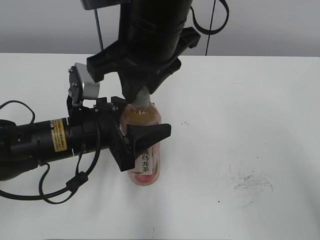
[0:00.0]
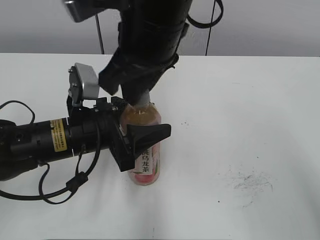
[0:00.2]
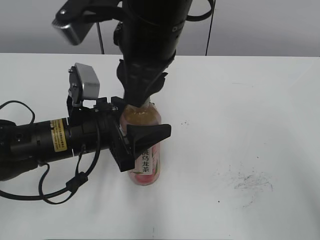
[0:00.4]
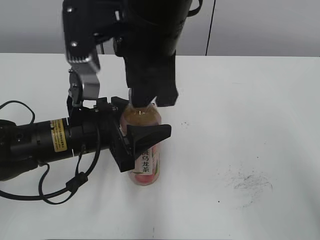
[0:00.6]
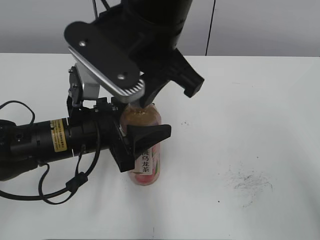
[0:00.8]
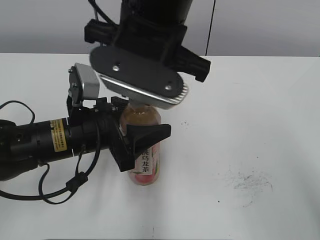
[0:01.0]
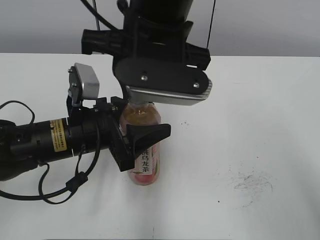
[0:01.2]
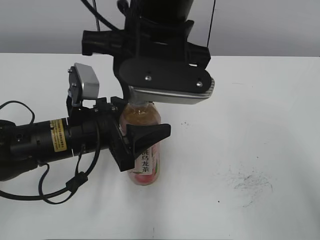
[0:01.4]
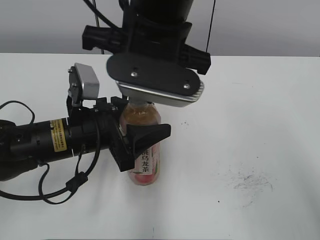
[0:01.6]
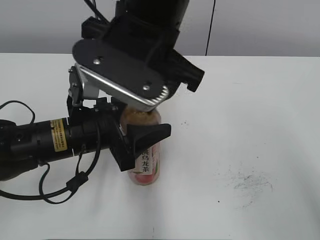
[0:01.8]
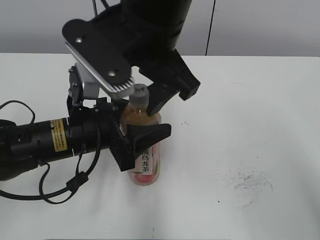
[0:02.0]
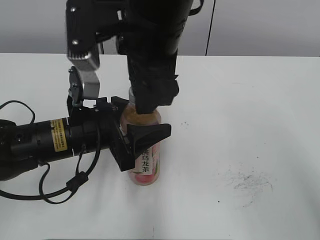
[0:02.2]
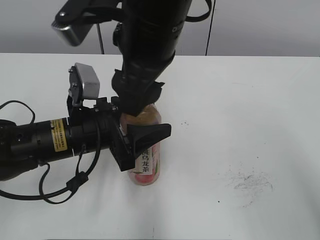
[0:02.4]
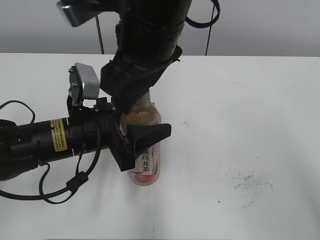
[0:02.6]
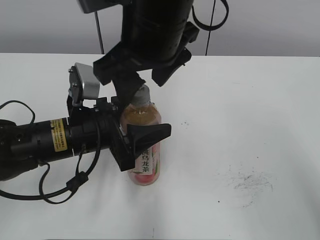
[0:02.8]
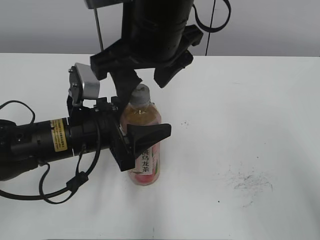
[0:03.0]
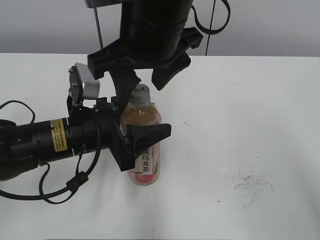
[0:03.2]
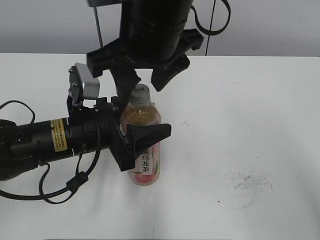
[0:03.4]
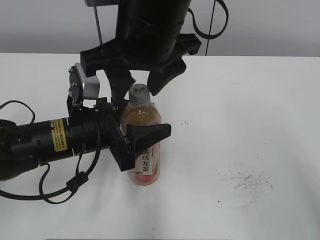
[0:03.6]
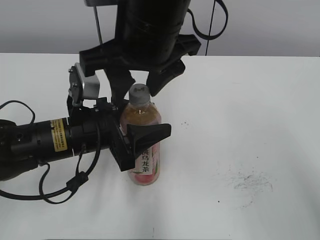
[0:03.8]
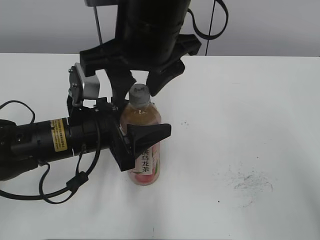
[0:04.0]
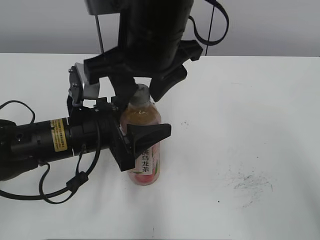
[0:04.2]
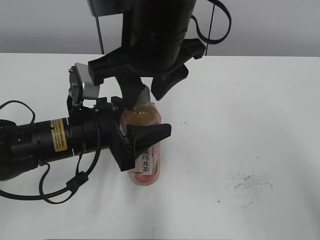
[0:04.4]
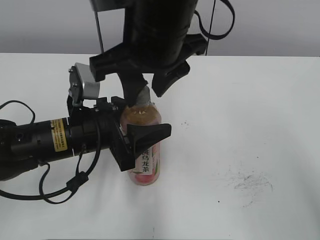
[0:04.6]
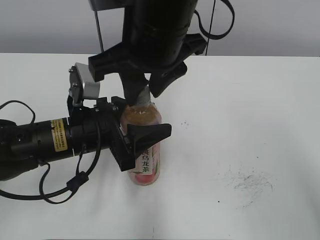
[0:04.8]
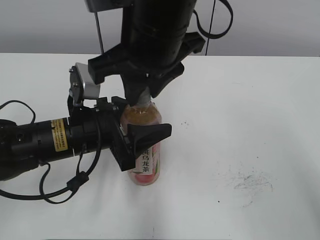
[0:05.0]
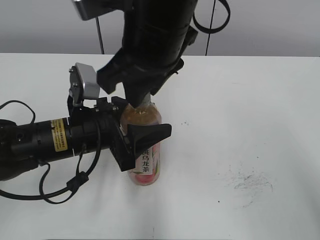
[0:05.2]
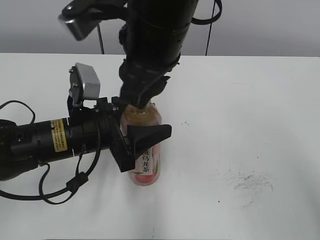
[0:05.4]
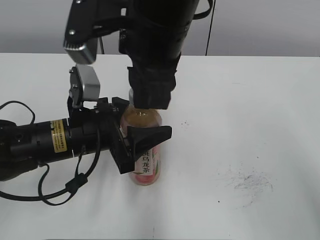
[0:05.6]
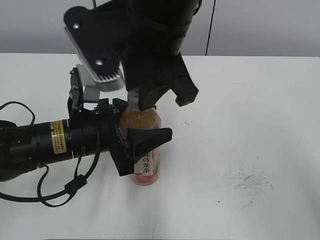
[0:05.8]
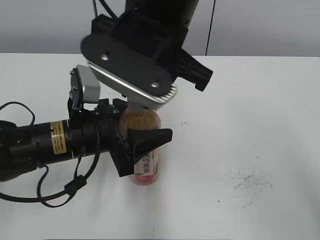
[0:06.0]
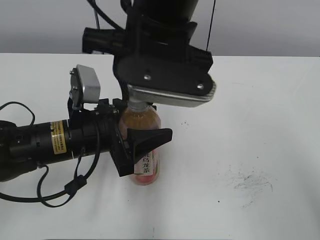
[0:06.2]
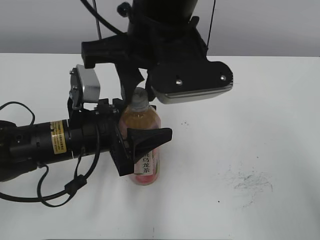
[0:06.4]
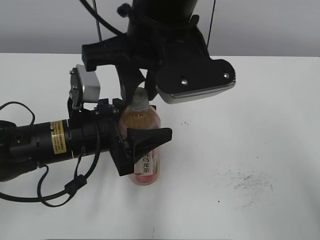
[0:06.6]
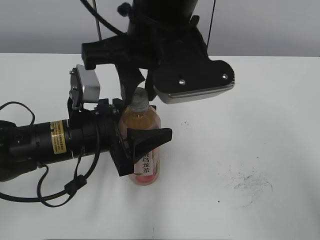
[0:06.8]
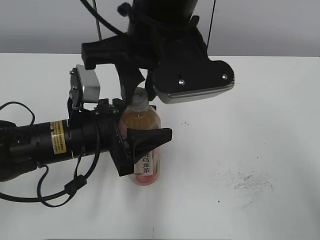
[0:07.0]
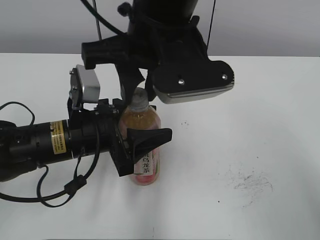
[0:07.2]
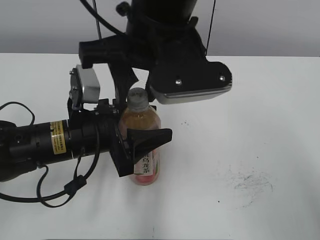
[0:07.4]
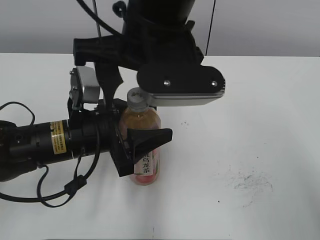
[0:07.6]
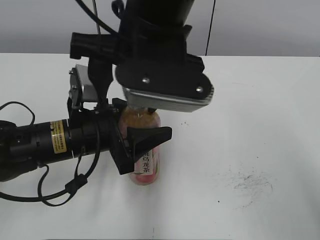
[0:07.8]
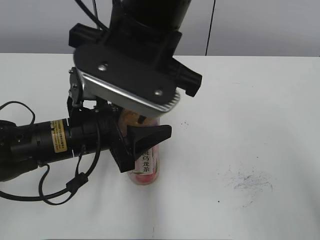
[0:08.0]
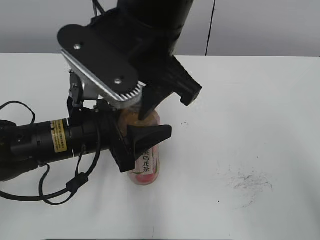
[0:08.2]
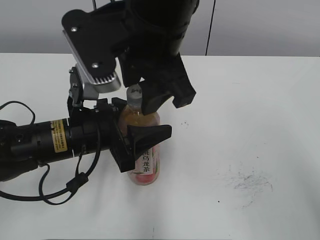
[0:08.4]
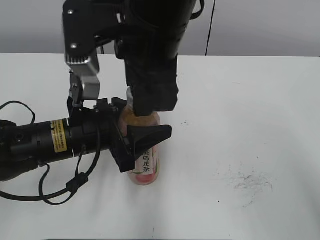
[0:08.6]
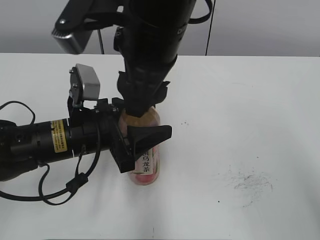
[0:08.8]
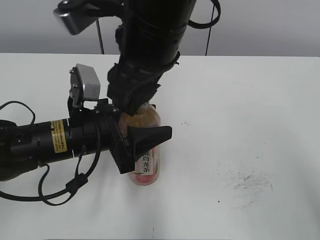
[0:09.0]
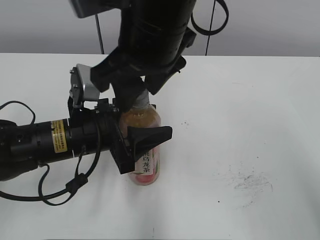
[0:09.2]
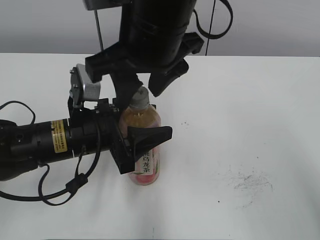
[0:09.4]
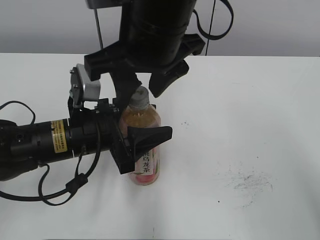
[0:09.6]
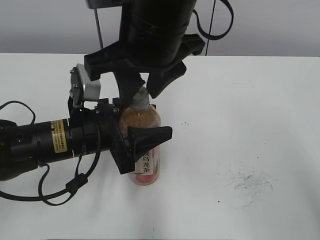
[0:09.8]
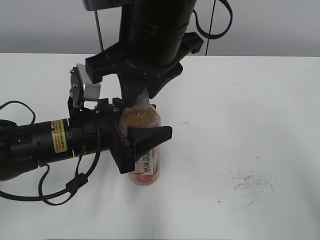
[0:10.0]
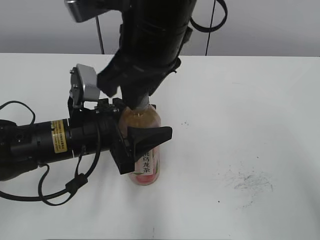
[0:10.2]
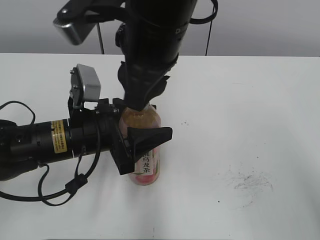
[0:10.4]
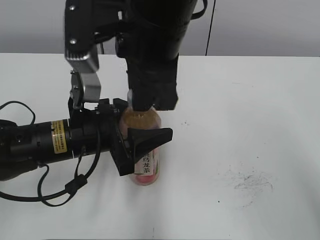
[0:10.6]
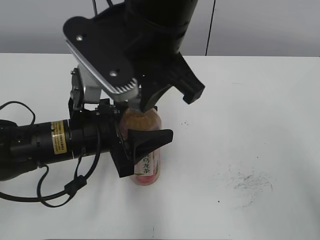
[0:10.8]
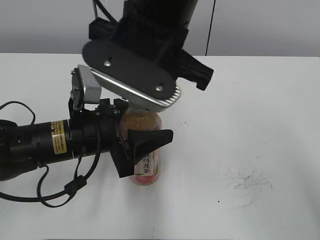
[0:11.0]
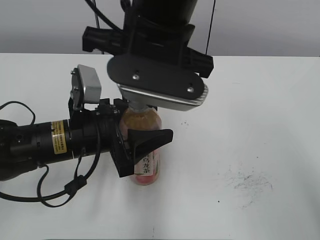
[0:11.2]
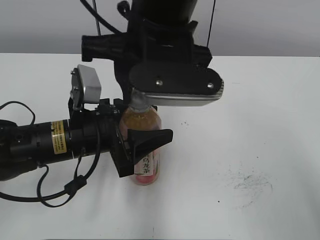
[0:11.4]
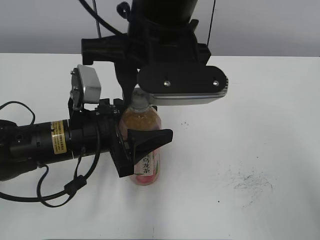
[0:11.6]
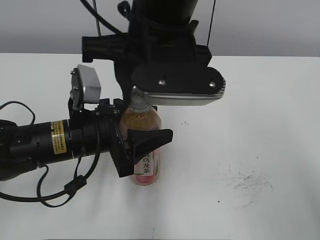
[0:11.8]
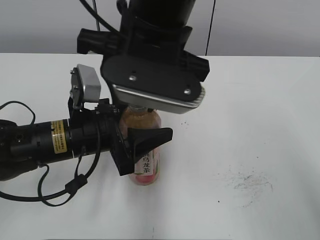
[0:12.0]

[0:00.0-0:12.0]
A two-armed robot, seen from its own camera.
0:01.6 to 0:03.0: The right gripper opens up.
0:03.0 to 0:04.4: The right gripper closes its fingers.
0:04.4 to 0:06.0: The right gripper closes its fingers.
0:06.0 to 0:07.6: The right gripper opens.
0:09.0 to 0:10.4: The right gripper closes.

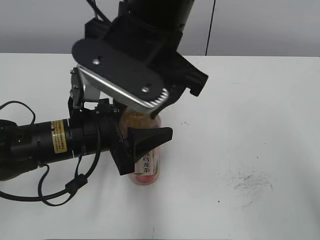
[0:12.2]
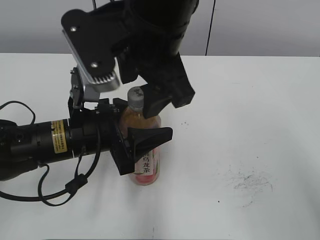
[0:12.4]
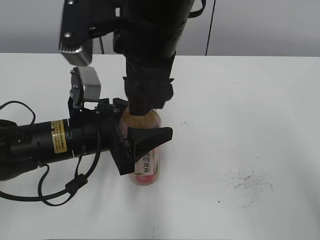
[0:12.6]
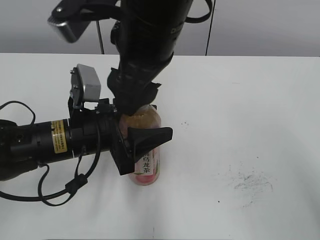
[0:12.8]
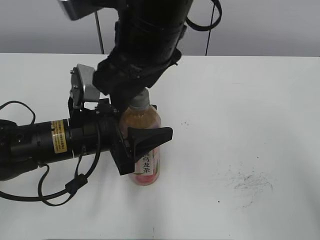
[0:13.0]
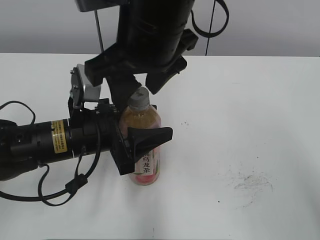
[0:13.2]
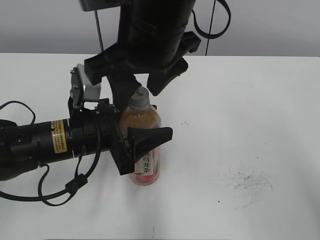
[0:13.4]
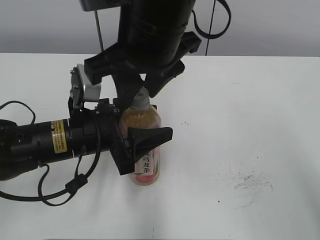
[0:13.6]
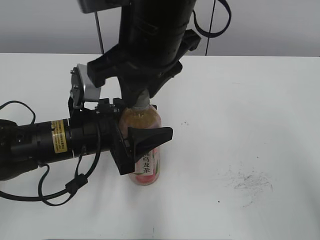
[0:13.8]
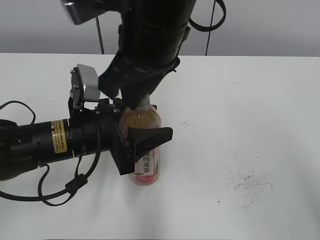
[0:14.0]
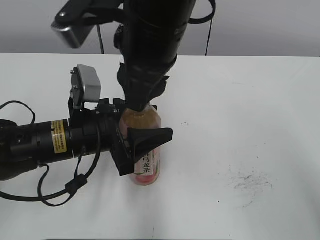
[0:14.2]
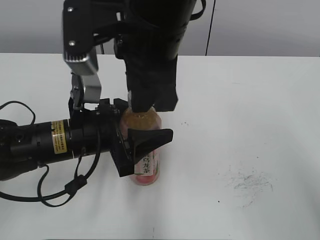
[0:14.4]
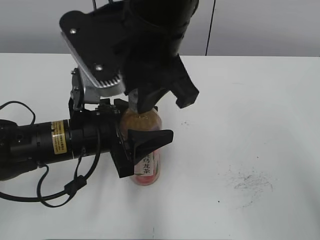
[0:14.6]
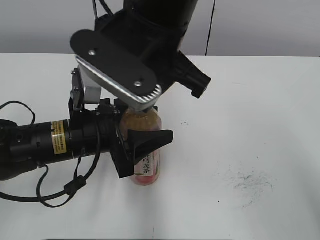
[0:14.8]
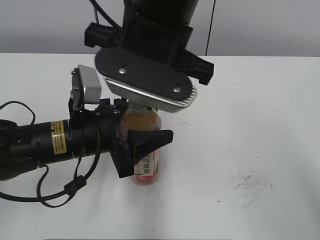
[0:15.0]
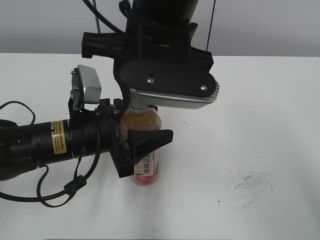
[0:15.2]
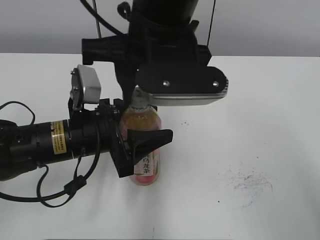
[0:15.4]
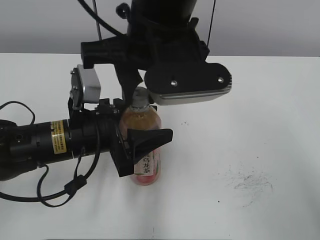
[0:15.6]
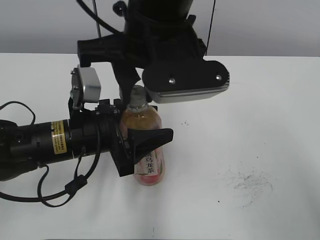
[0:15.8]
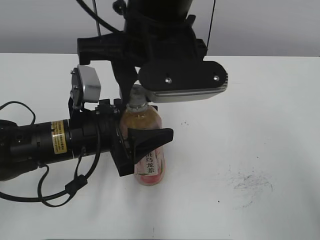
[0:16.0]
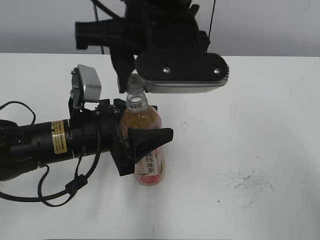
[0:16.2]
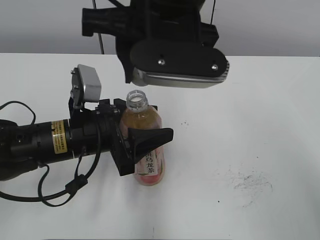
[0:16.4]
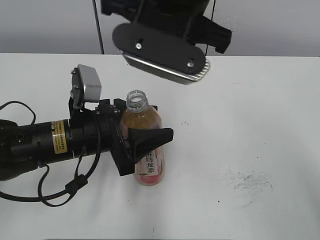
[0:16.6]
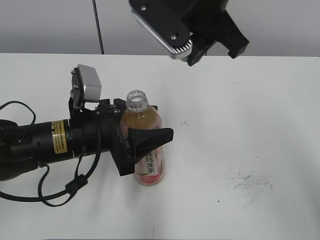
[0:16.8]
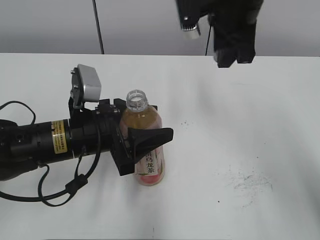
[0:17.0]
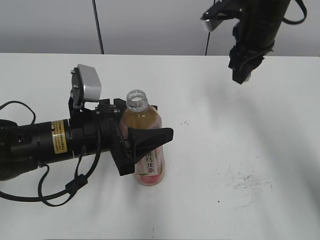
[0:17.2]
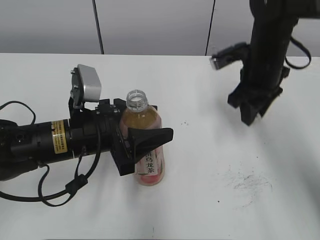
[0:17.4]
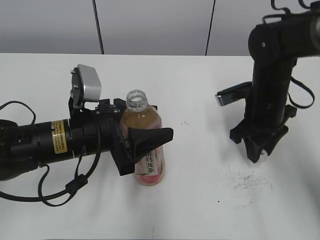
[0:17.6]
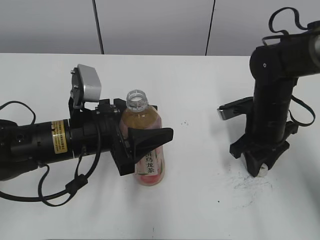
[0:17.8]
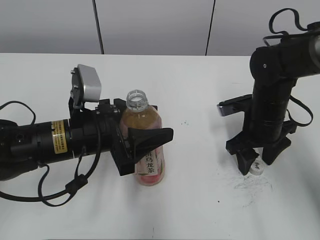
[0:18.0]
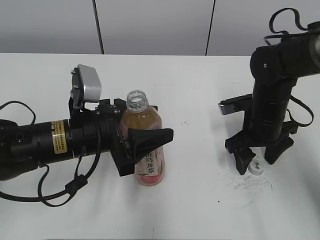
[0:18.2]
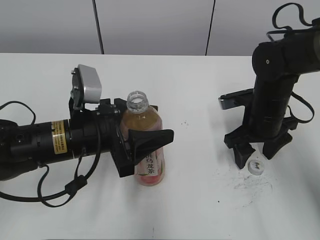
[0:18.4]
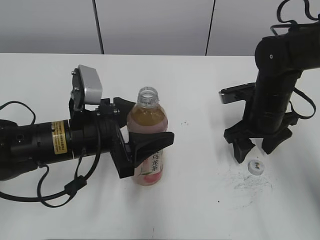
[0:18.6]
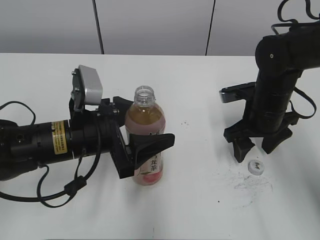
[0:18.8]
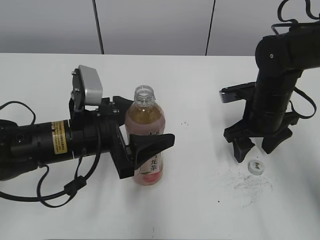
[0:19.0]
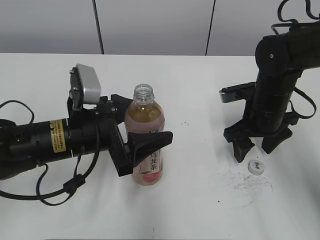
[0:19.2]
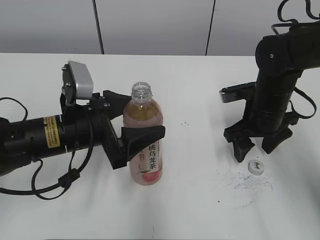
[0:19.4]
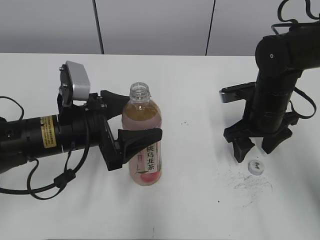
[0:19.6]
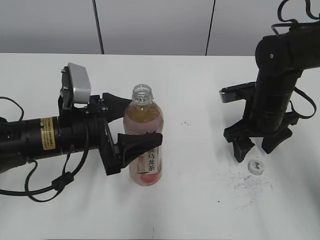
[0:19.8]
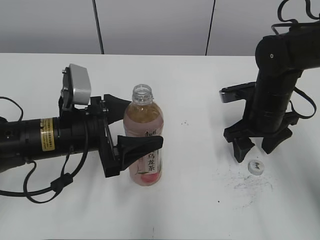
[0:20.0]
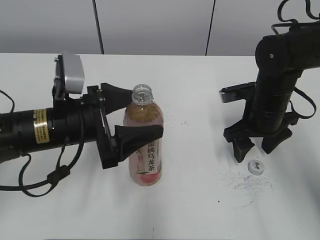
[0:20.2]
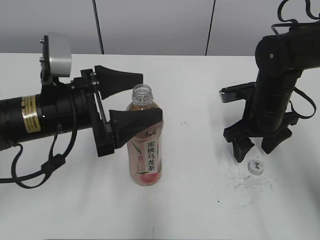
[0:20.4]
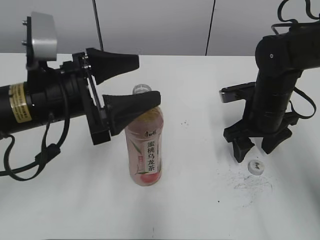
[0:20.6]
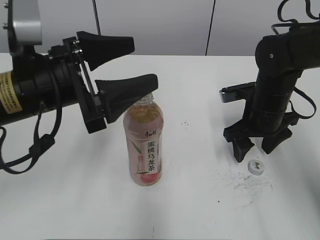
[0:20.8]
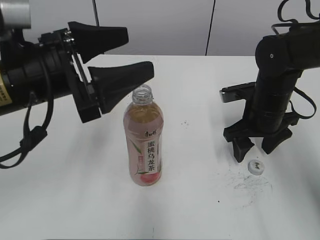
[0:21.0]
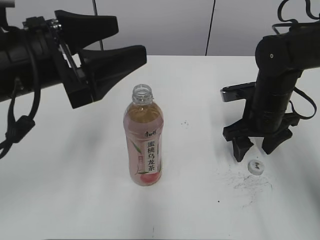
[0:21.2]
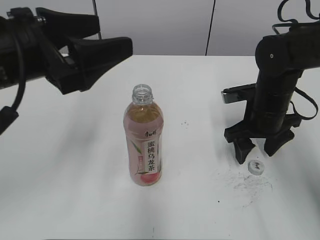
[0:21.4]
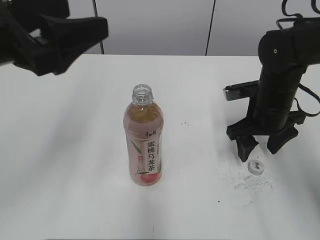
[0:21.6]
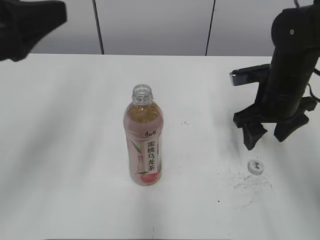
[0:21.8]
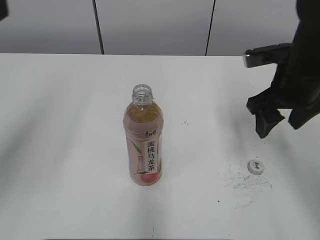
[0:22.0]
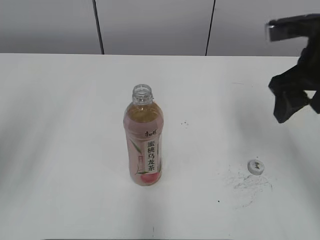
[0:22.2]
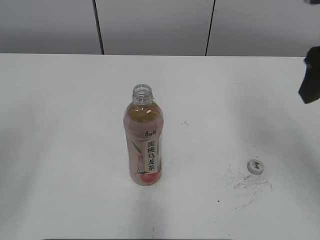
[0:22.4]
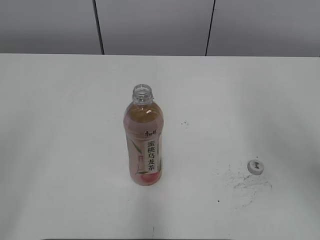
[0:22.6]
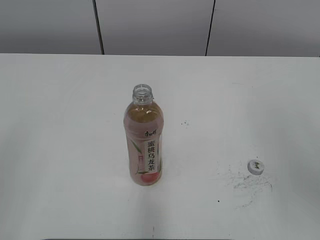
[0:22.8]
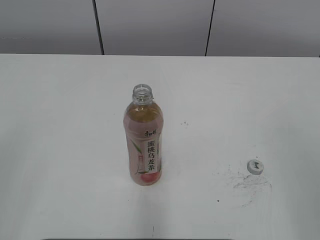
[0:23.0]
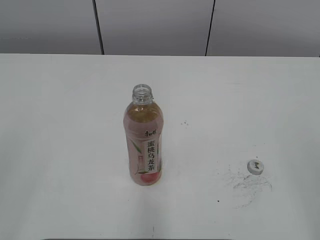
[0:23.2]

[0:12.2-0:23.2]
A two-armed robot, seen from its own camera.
Step, 0:16.2 to 0:17.8: Place the bottle cap on the right.
Step, 0:18.0 to 0:19.6: Place the Peach Oolong Tea with the left hand.
0:12.2 to 0:13.8: The right gripper closes its fingers.
0:15.4 to 0:17.0: The right gripper is displaced to the right and forward by roughly 15 cm.
0:17.0 to 0:18.4: The right gripper heads downward and to the right, covering some 20 cm, and opens up.
0:18.4 to 0:20.0: The left gripper opens up.
0:20.0 to 0:21.6: The left gripper is displaced upward by some 15 cm.
0:21.6 to 0:23.2: The left gripper is displaced backward and to the left by roughly 25 cm; the right gripper moves backward and upward, approximately 35 cm.
